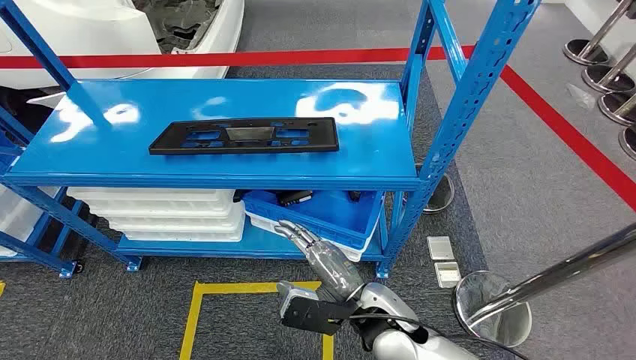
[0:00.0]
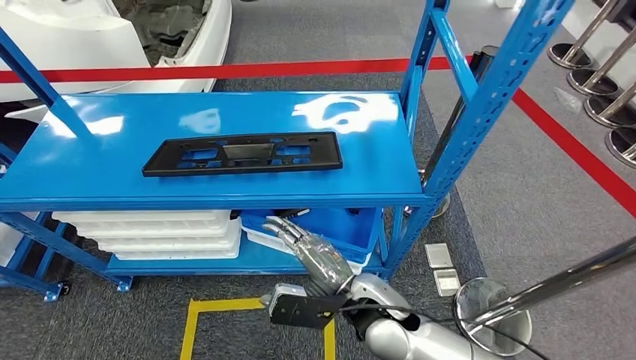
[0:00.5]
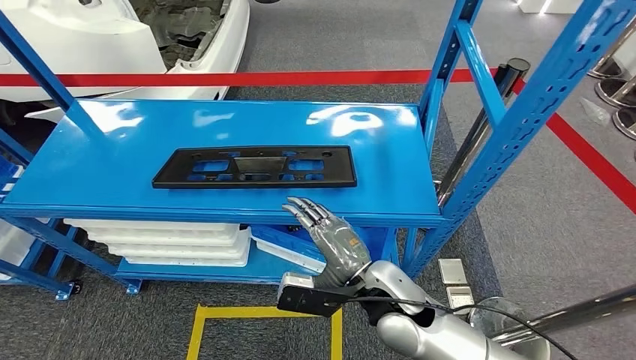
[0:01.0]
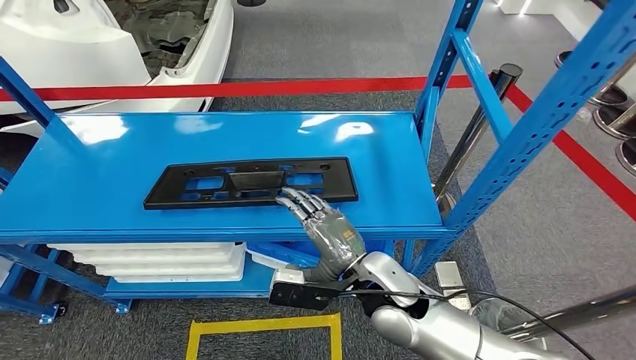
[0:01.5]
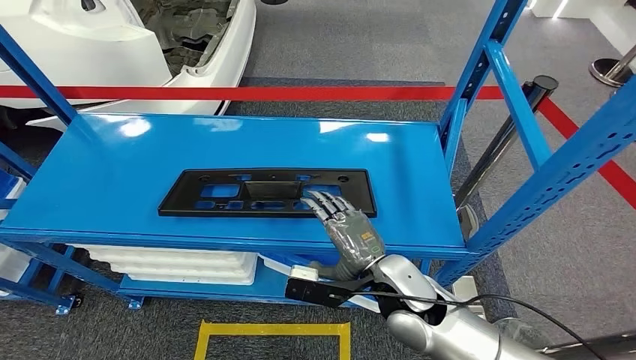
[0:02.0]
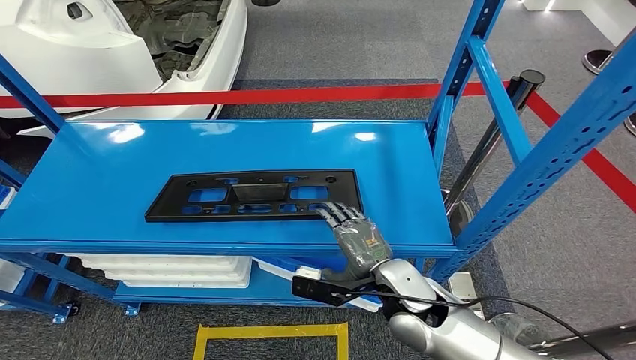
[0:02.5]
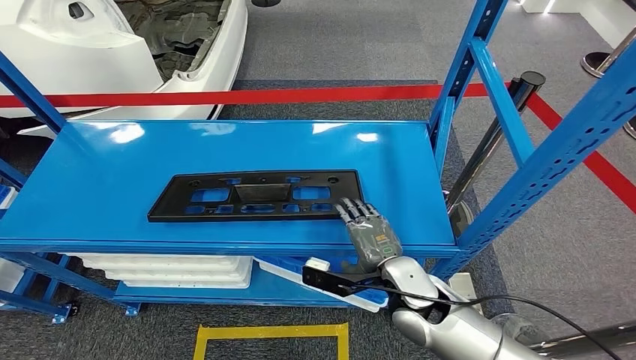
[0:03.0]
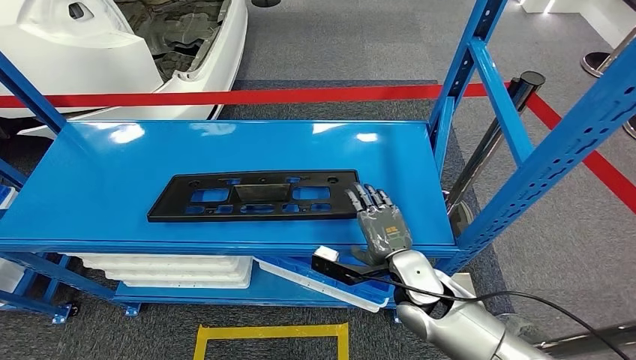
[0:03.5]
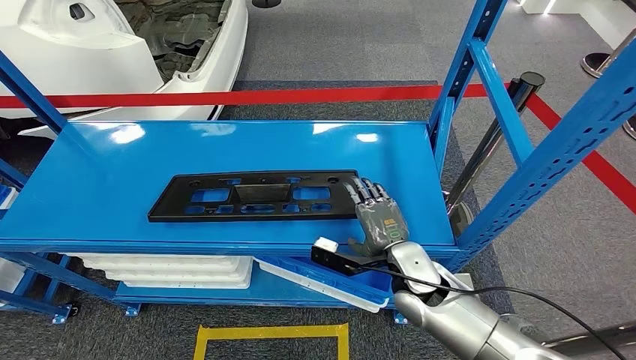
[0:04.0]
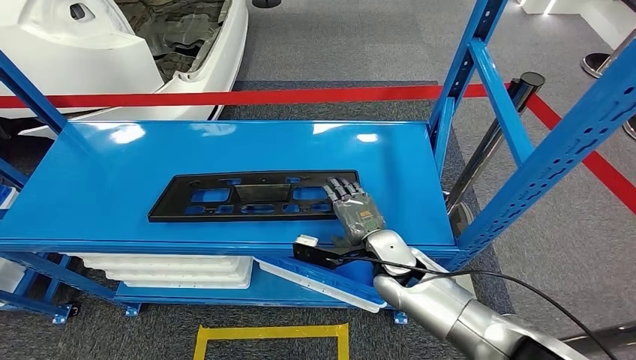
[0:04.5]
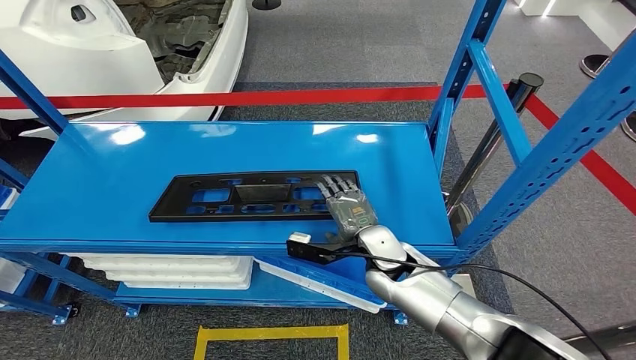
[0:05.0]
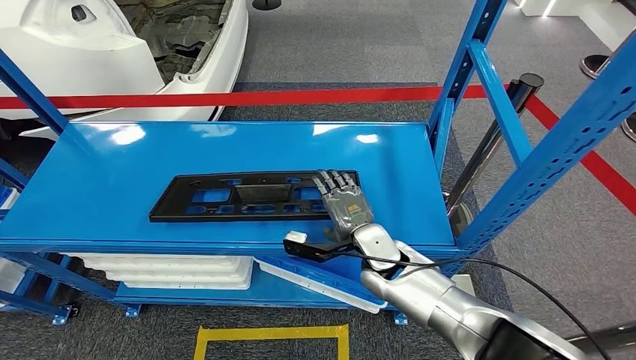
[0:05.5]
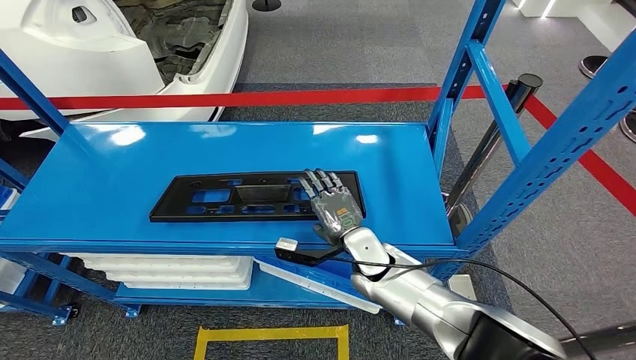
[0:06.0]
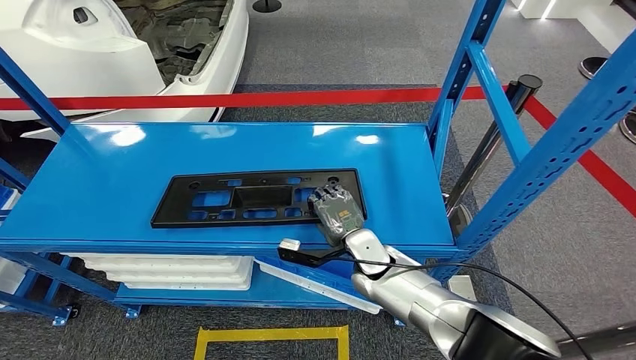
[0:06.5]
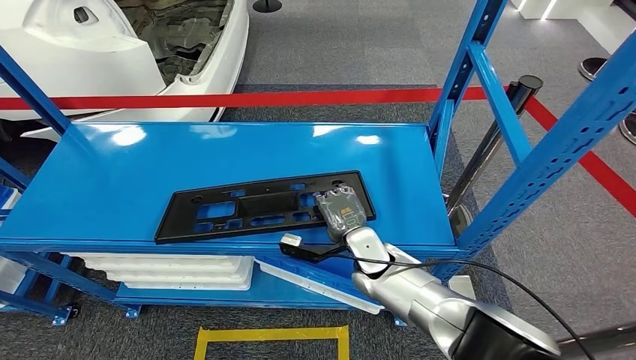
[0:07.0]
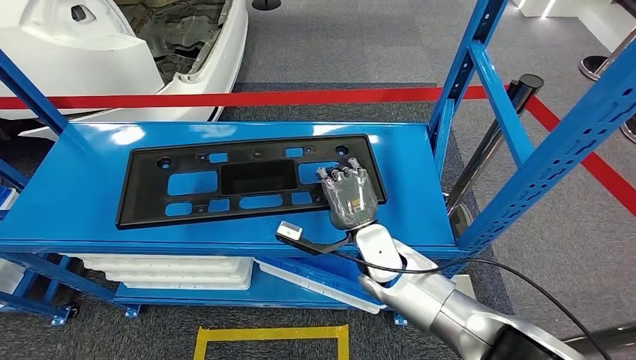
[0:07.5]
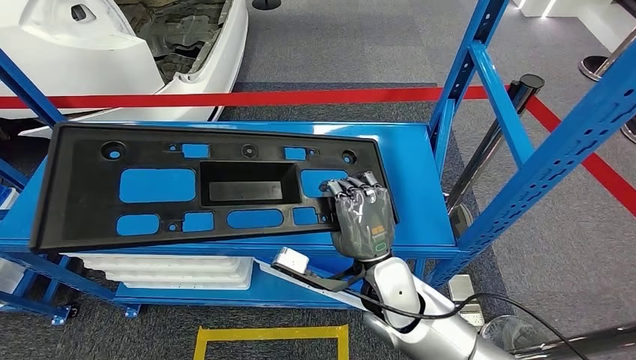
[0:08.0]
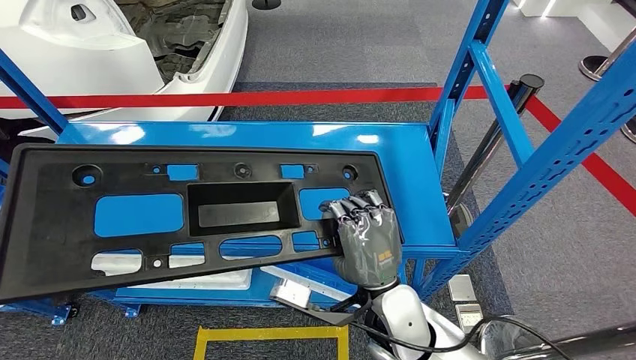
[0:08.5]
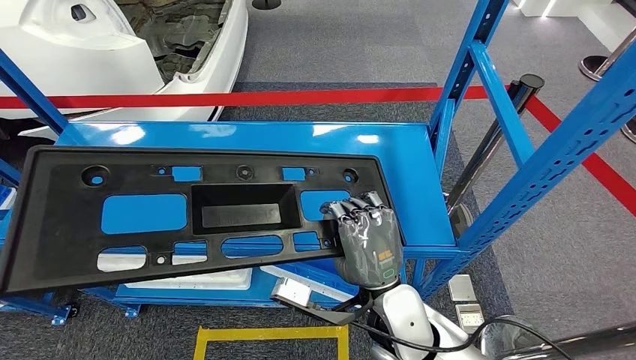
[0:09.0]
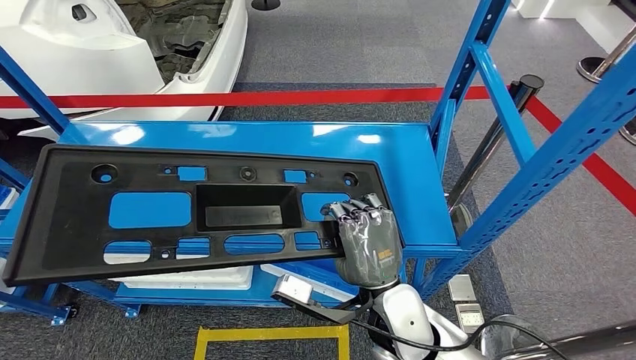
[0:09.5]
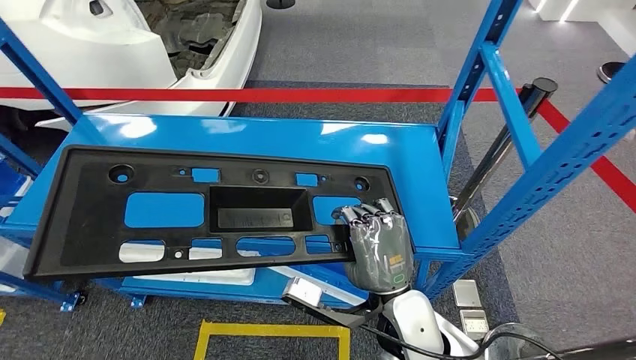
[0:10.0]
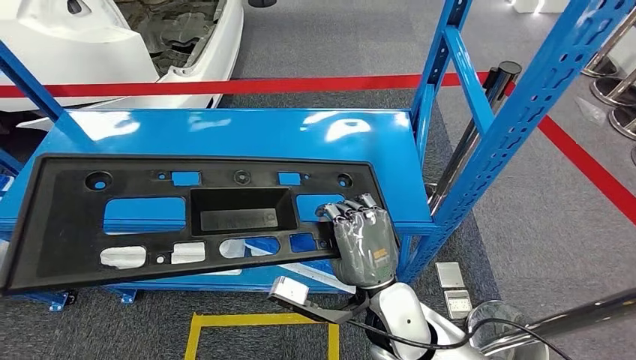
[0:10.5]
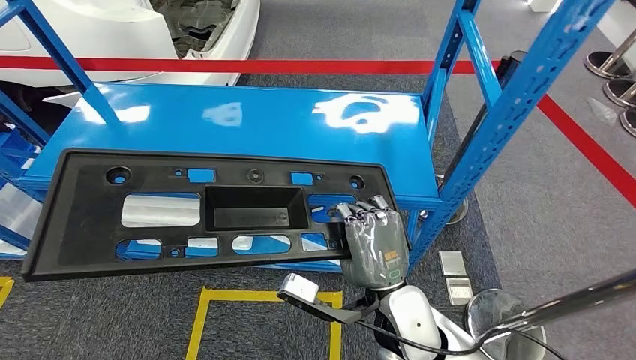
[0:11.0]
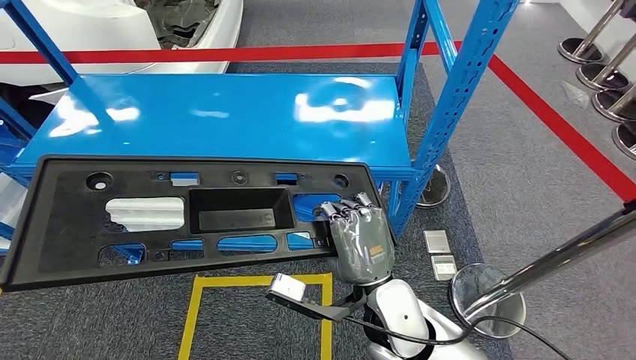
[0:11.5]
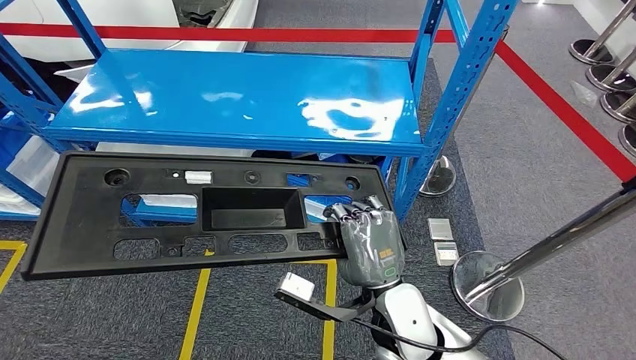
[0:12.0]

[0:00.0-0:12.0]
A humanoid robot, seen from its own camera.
0:04.0 to 0:06.0: The right hand shifts roughly 10 cm to the left and forward.

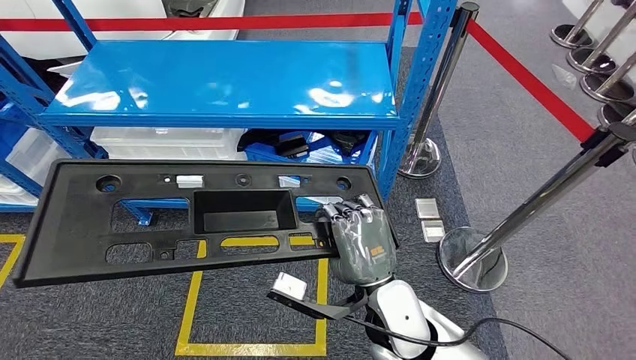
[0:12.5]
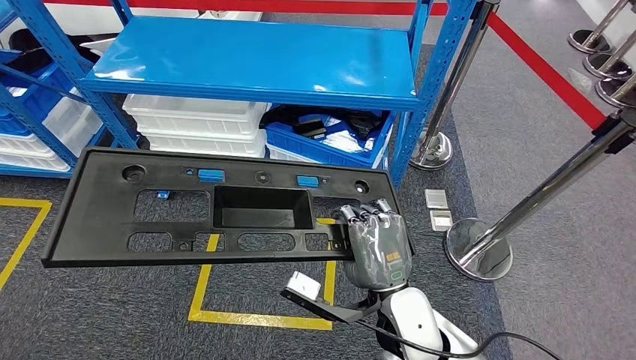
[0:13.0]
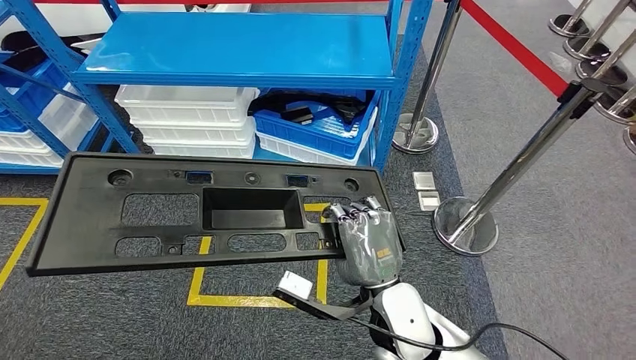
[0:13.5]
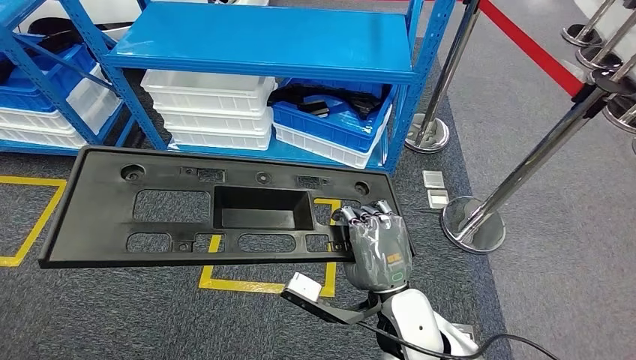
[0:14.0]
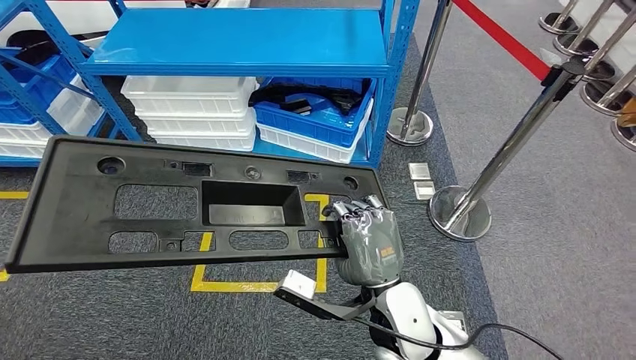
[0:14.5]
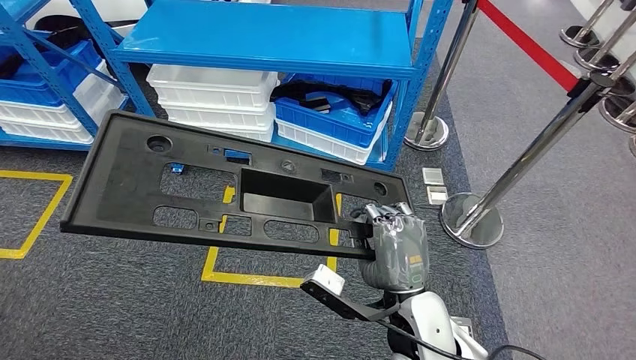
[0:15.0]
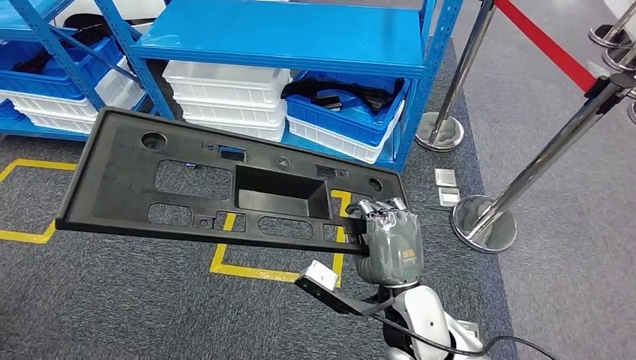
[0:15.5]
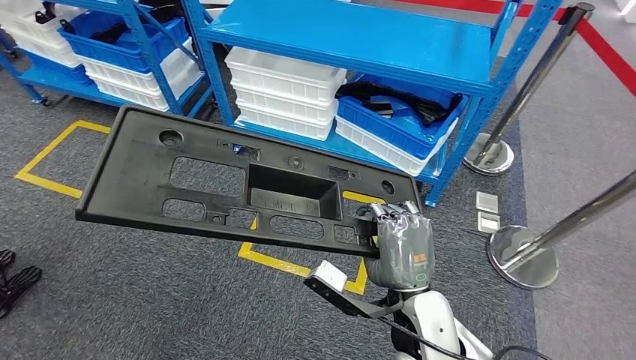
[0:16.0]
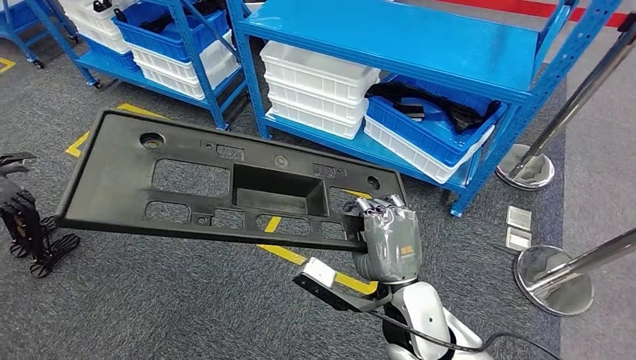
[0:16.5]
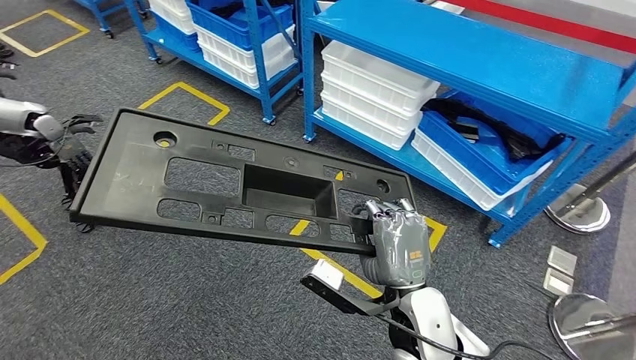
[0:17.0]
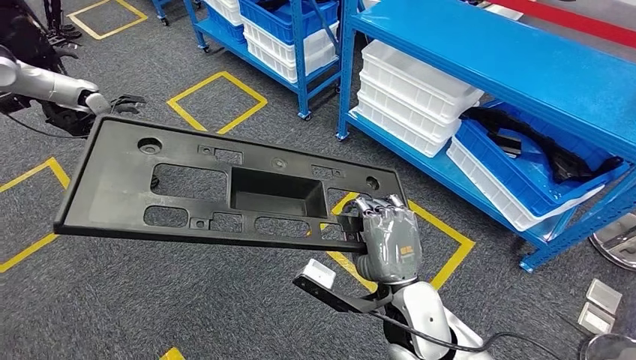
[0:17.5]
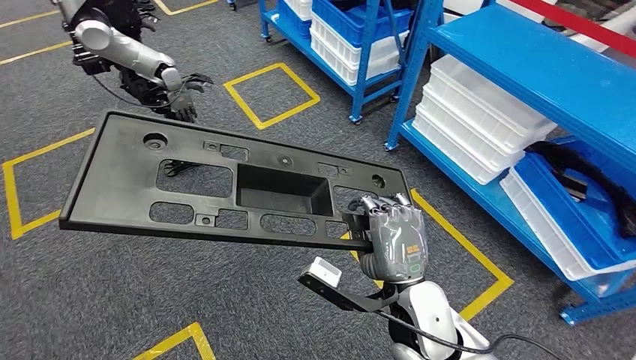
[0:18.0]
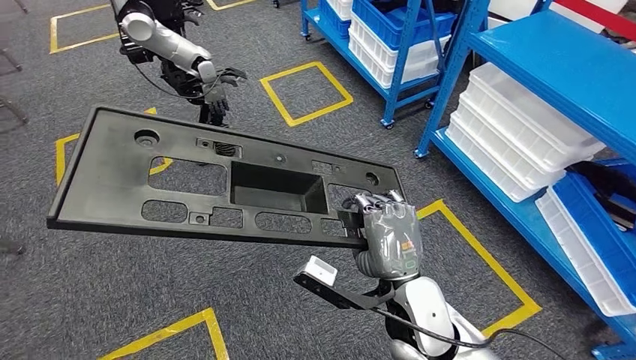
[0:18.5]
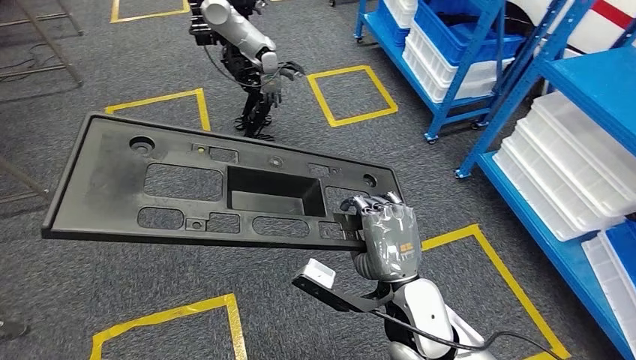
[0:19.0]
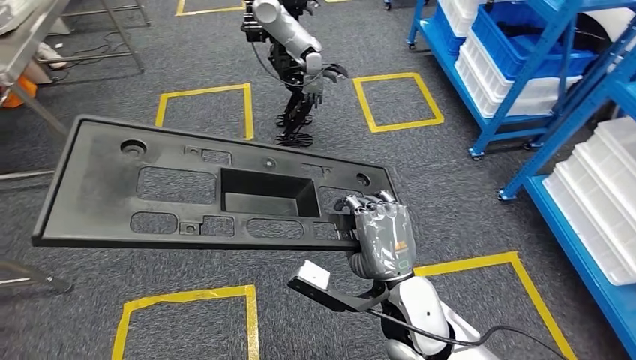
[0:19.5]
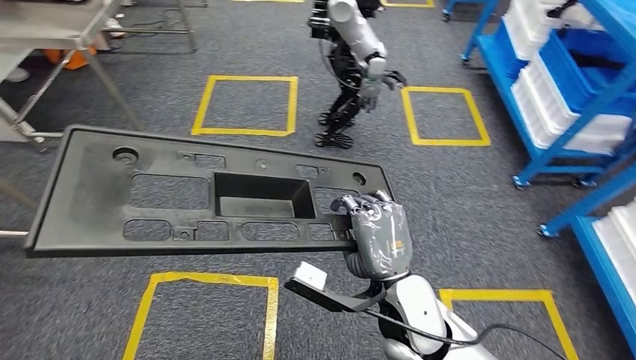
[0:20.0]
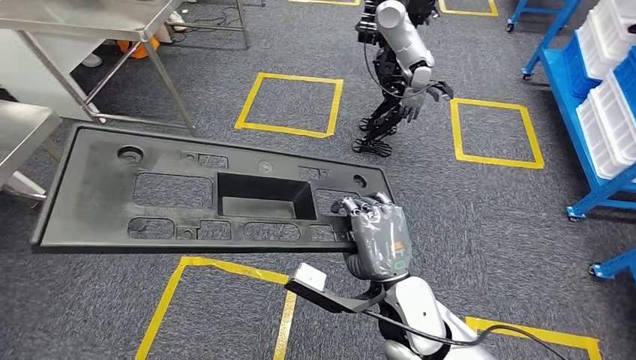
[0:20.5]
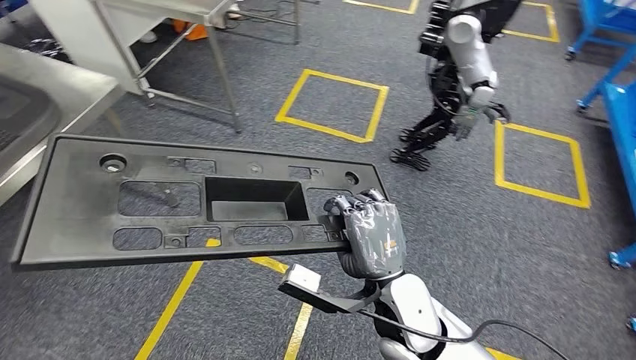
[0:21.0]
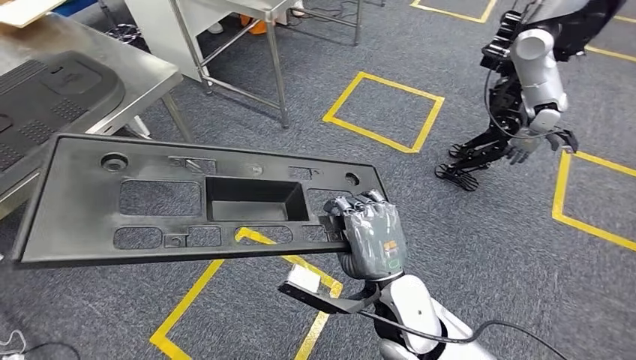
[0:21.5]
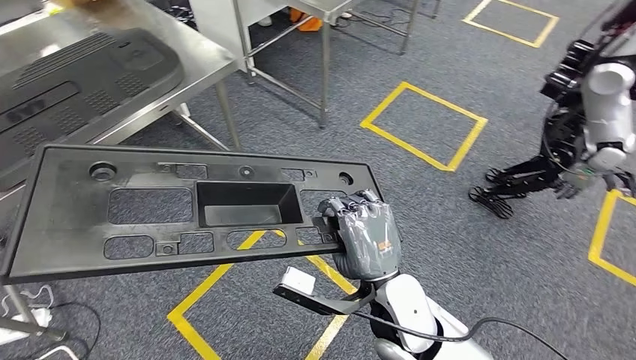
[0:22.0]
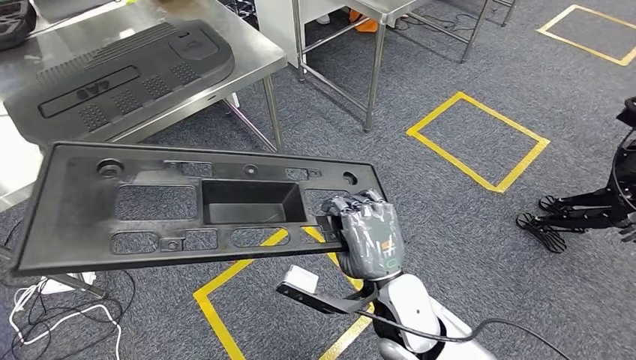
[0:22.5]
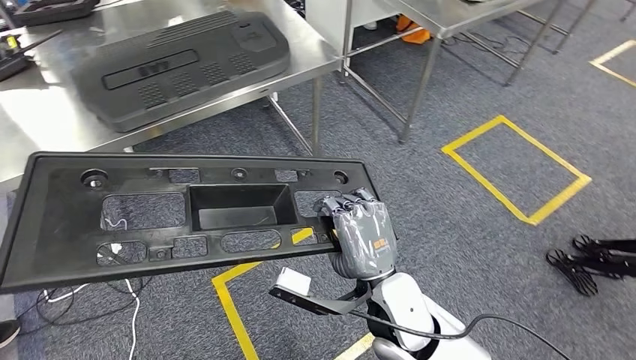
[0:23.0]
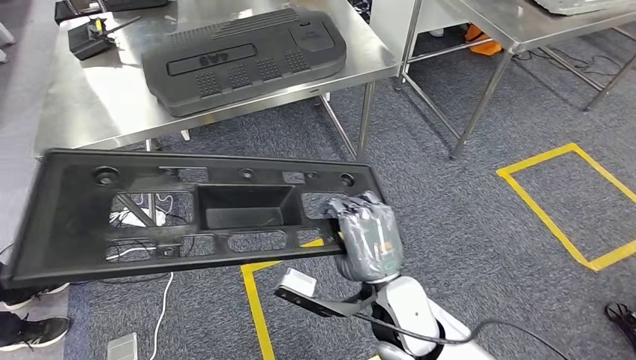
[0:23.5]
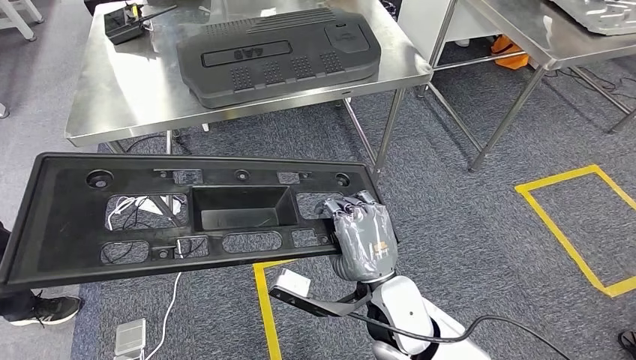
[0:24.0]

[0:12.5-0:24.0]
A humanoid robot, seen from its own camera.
Step, 0:12.5 to 0:14.5: Pick up the large material from the shelf.
